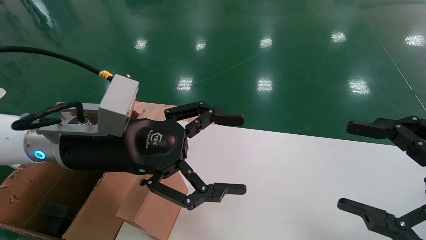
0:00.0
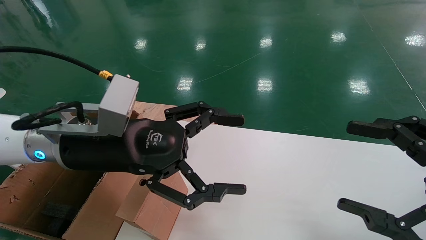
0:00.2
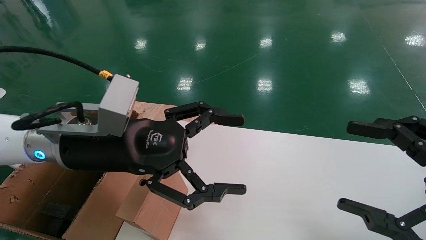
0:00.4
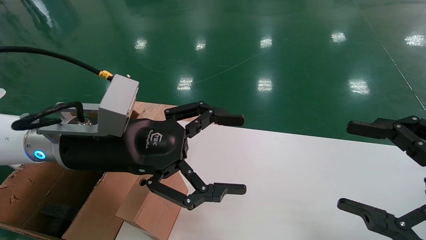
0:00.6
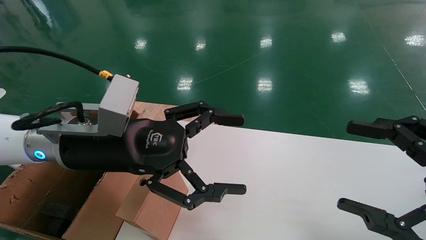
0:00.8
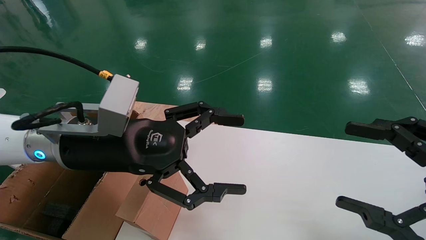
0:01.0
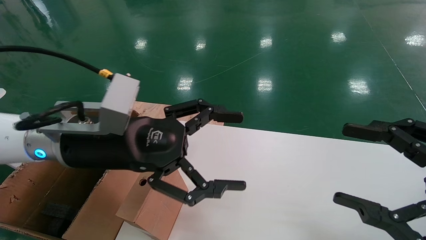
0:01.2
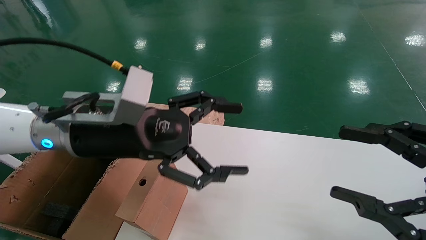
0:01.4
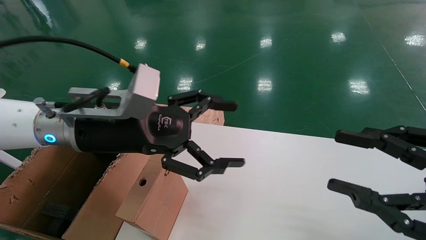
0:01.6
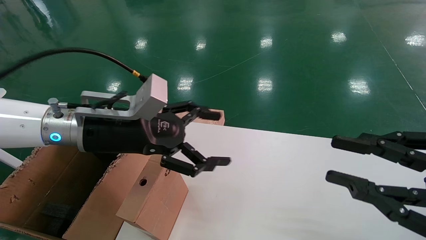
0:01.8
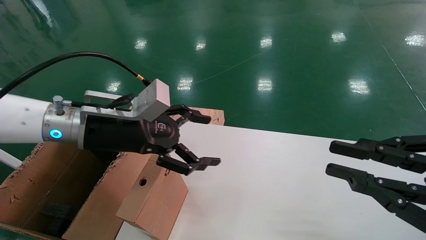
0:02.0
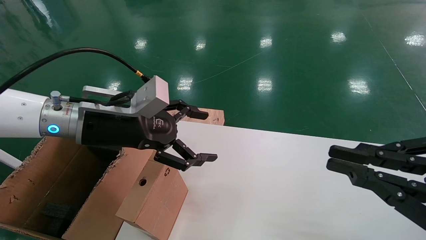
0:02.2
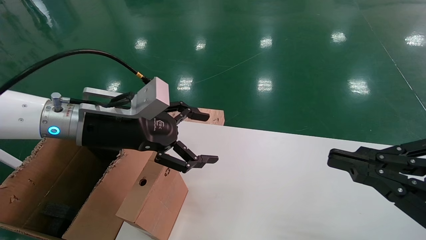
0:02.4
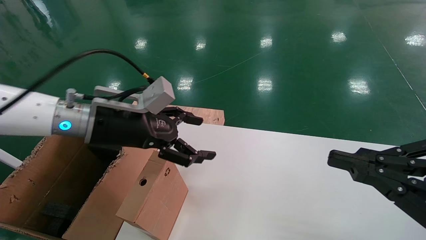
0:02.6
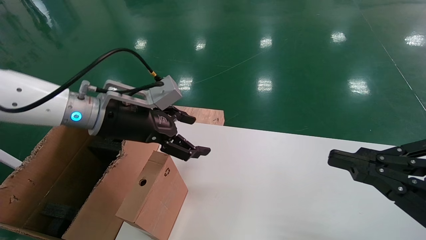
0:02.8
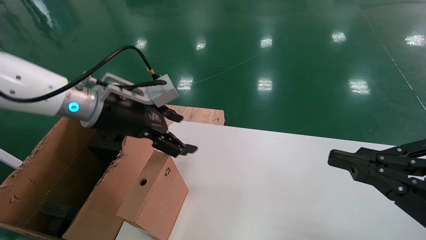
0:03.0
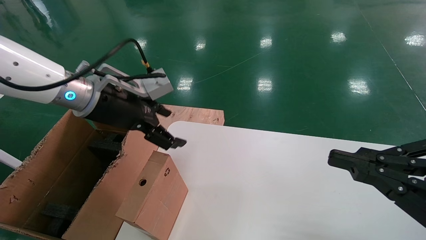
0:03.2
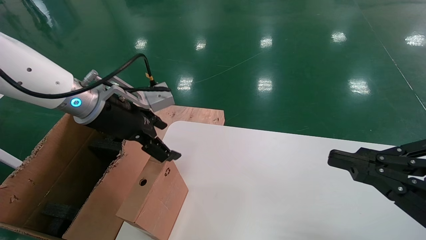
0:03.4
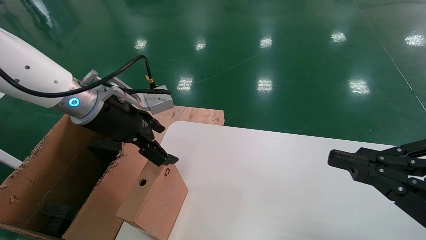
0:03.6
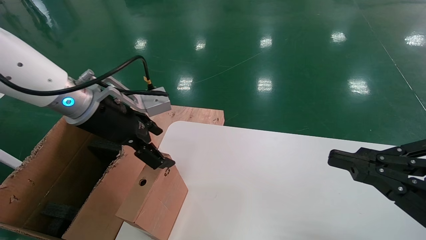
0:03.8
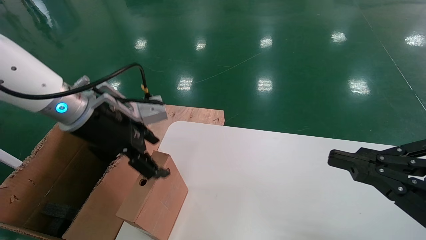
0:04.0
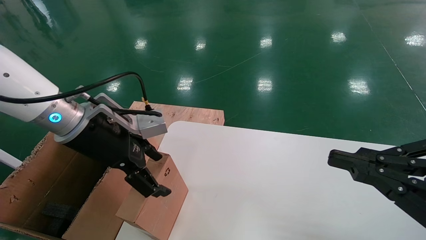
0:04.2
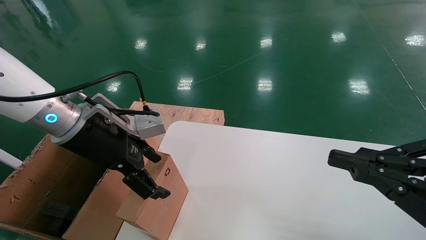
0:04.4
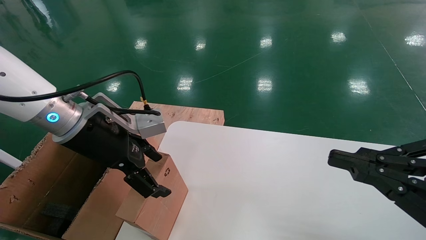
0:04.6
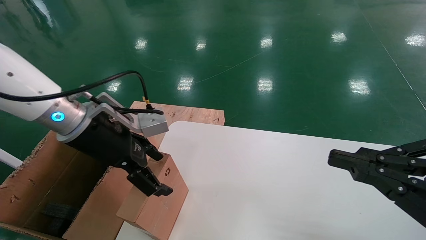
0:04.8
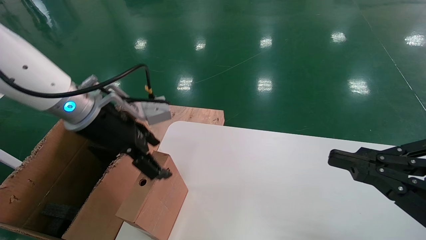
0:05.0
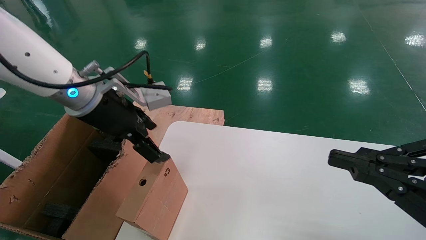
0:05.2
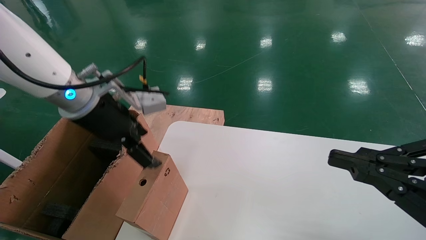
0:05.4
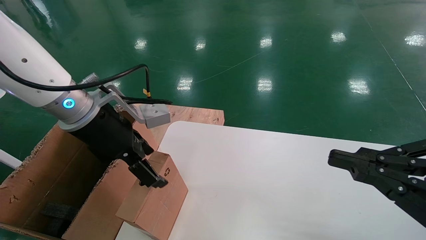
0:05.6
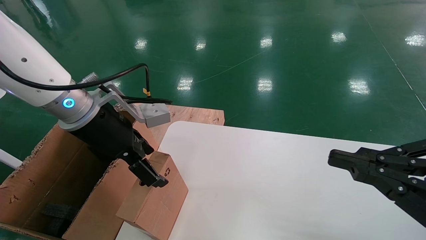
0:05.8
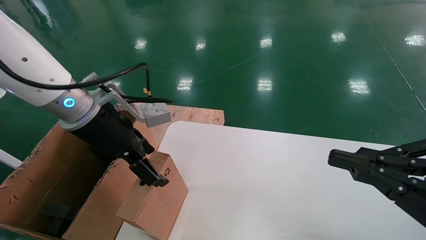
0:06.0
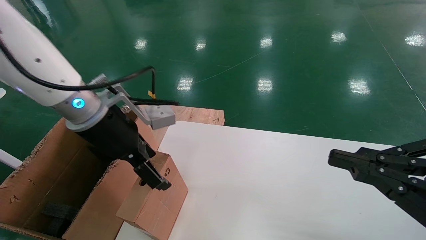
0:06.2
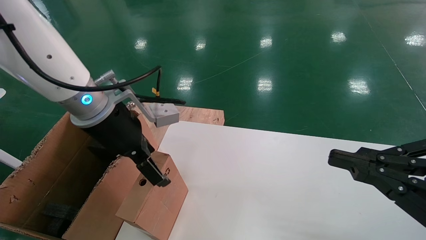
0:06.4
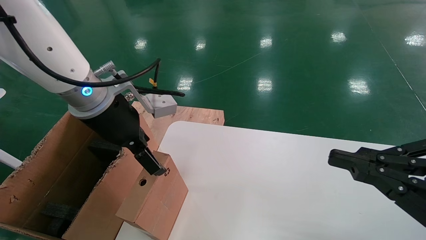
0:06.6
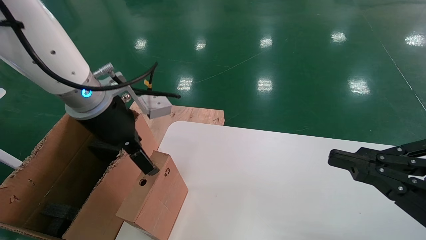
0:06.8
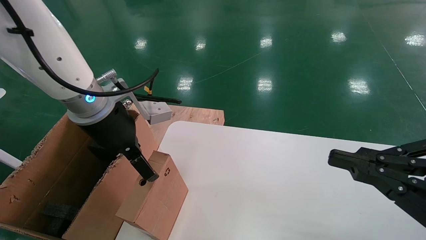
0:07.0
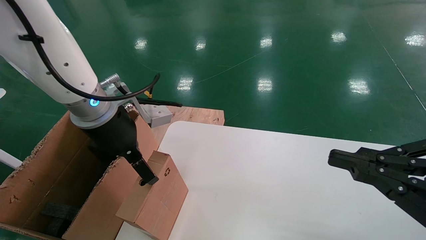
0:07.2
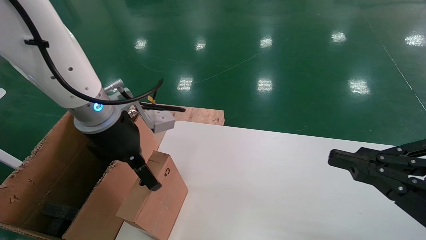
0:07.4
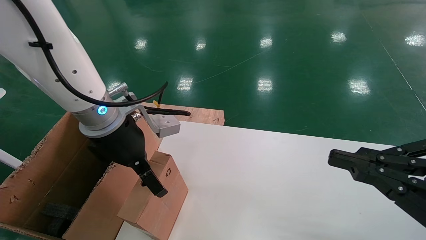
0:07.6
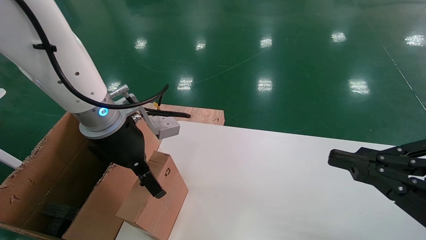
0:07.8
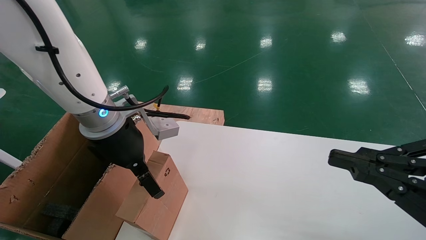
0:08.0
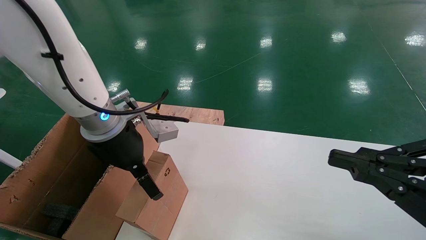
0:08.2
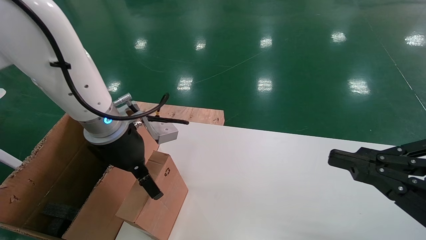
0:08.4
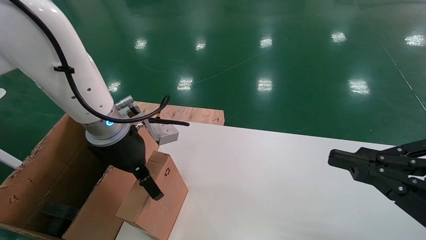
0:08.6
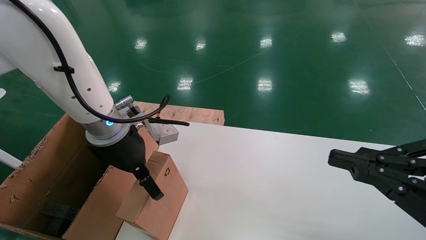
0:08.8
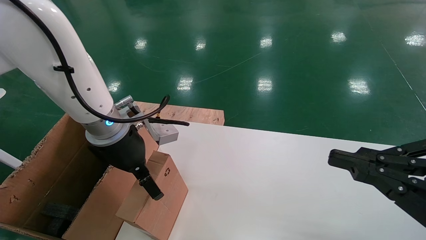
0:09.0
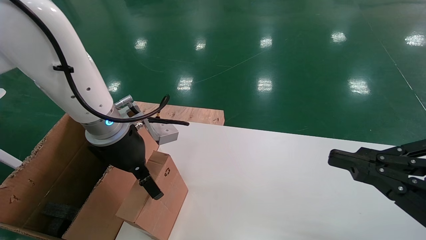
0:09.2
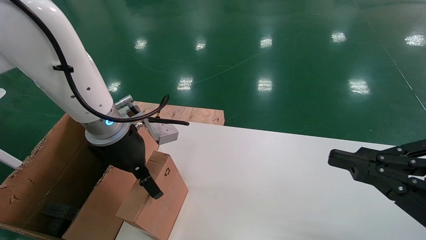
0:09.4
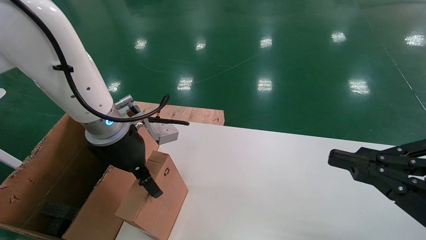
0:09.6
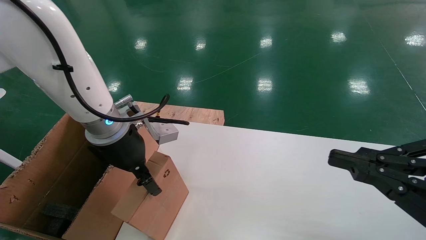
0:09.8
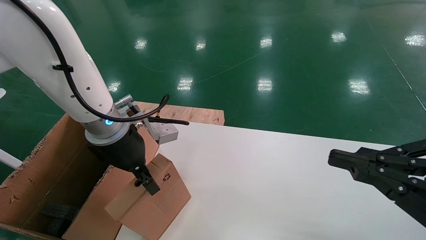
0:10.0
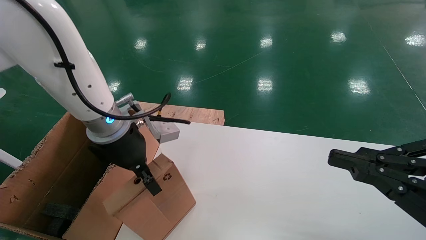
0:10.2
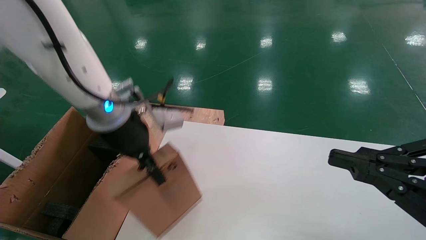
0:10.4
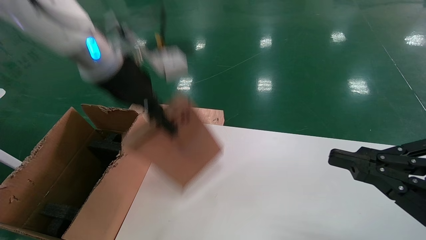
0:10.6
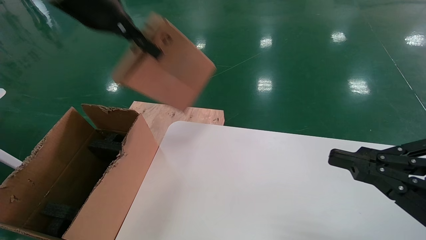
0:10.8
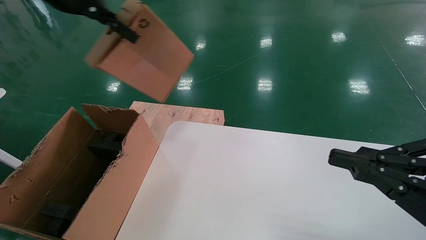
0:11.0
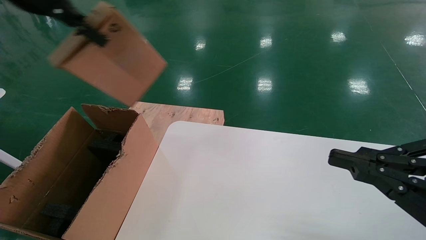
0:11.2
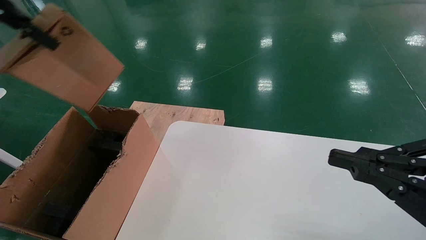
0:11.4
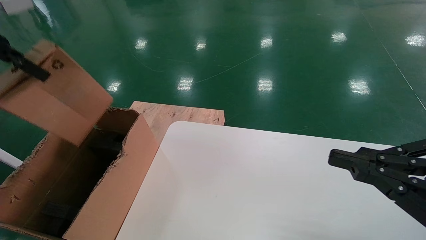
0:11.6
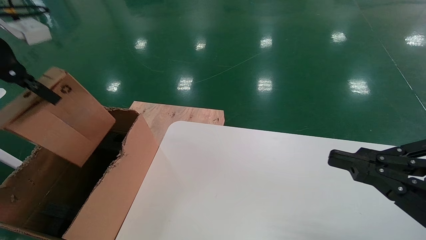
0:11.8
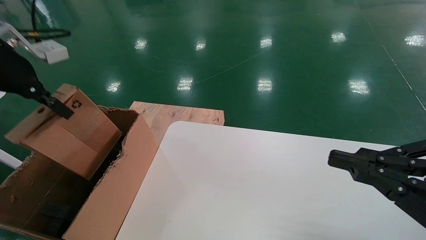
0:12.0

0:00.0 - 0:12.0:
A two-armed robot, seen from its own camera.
Task of the whole recording: place the small box on the table into the large box on the left.
Step, 0:01.6 - 0:10.4: Pick up the mouse and the power cord paper box.
0:01.6 - 0:03.0: The right gripper closes up; the left gripper is displaced forward by about 5 cm.
0:03.0 - 0:04.4: The grippers stay close to where they were, moving slightly.
0:04.4 - 0:06.0: The grippers move only a little.
0:06.0 - 0:09.0: The grippers stay close to where they were, moving slightly.
0:09.0 - 0:10.4: The left gripper shifts roughly 5 cm upward, and closes up.
0:10.4 - 0:12.0: The left gripper goes some 20 cm to the left.

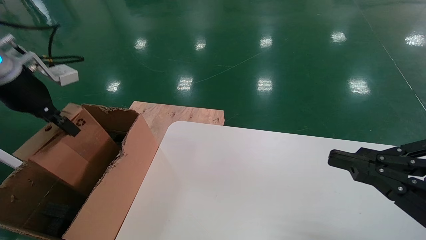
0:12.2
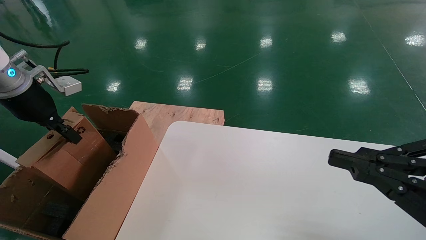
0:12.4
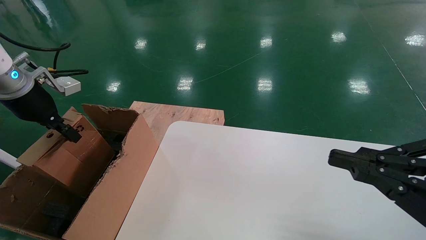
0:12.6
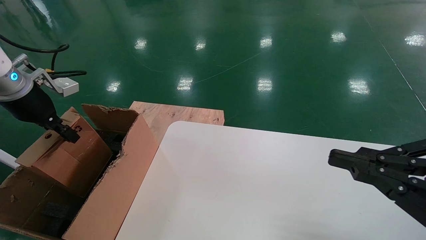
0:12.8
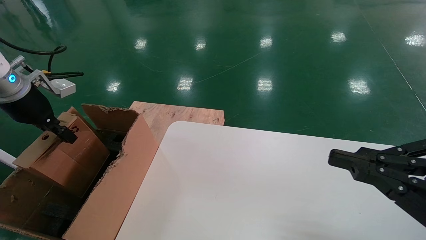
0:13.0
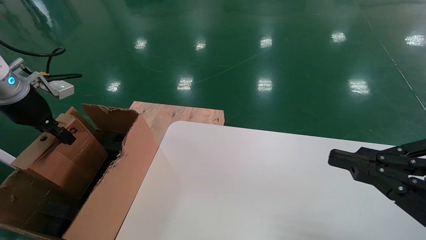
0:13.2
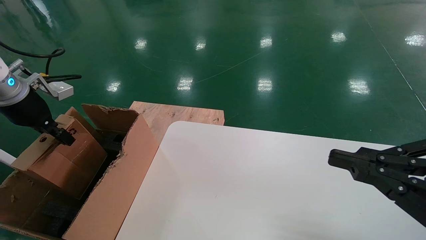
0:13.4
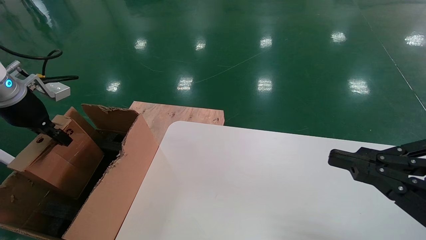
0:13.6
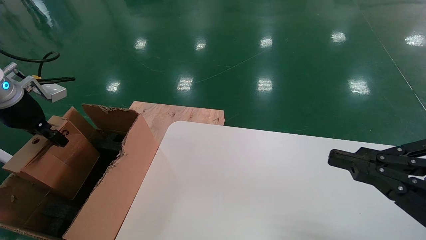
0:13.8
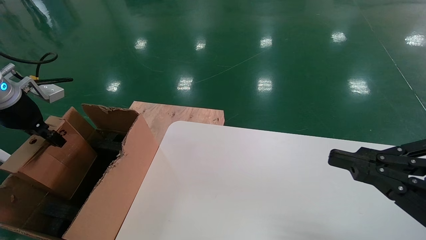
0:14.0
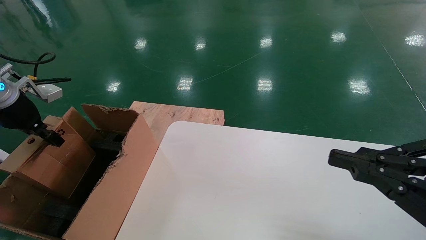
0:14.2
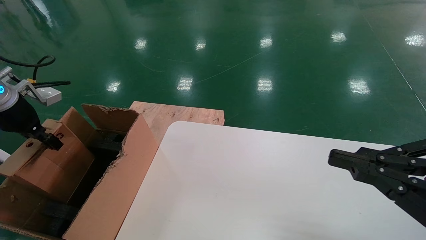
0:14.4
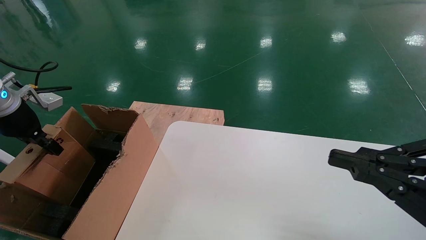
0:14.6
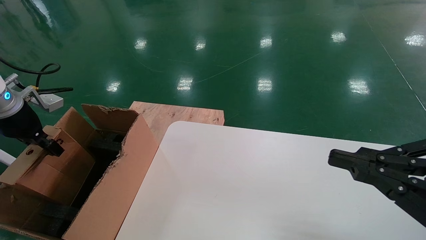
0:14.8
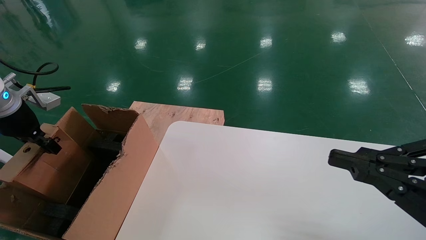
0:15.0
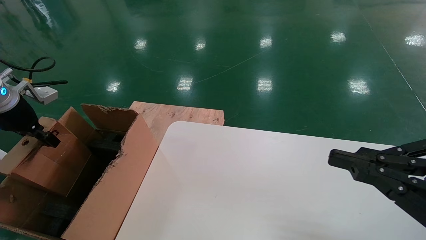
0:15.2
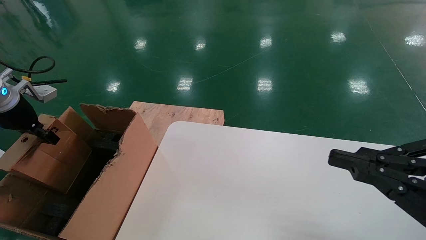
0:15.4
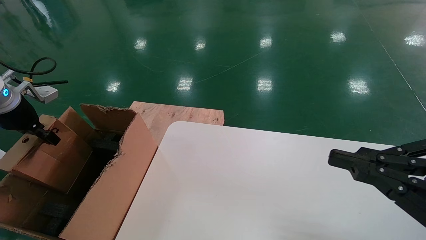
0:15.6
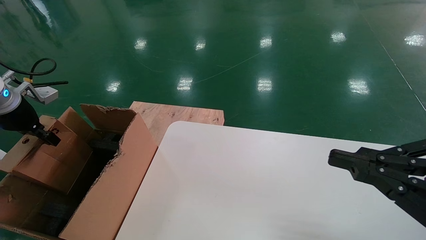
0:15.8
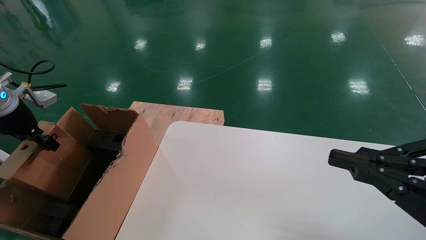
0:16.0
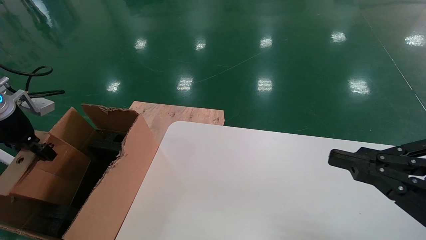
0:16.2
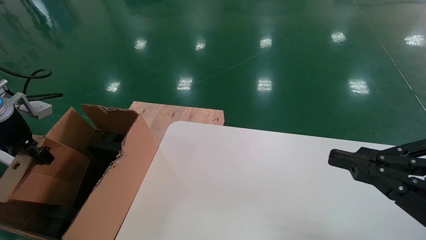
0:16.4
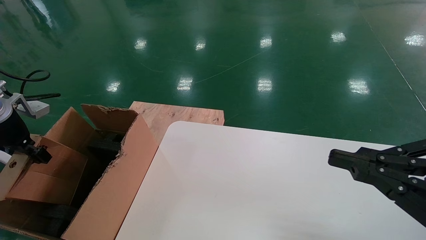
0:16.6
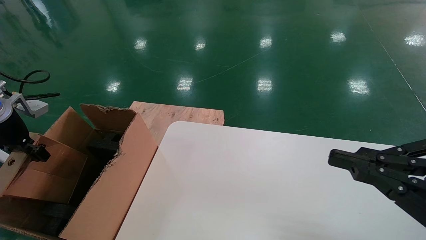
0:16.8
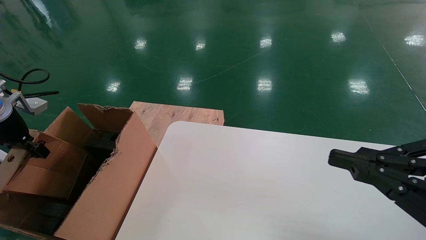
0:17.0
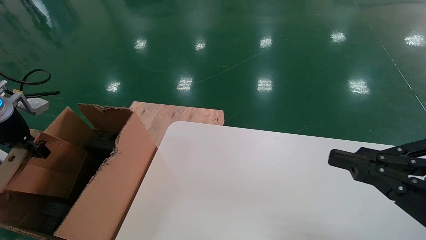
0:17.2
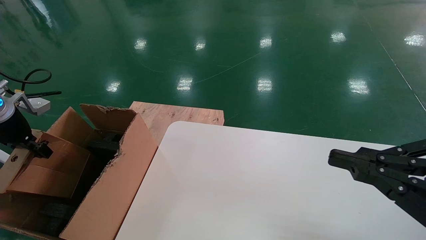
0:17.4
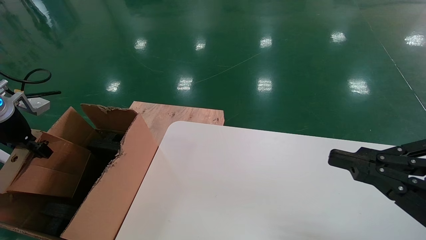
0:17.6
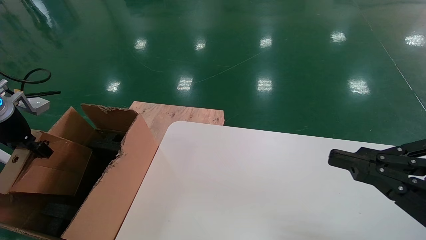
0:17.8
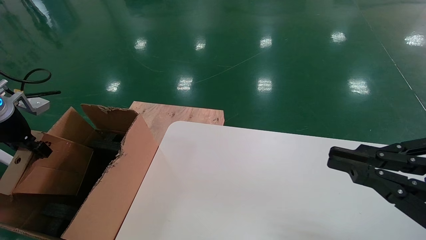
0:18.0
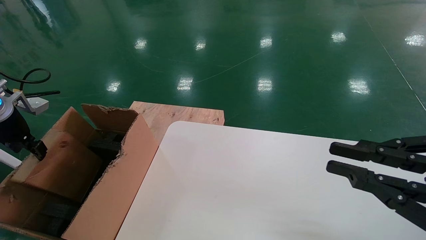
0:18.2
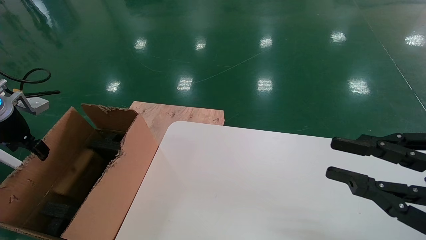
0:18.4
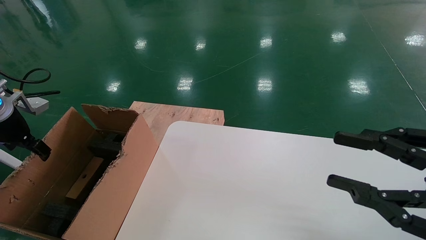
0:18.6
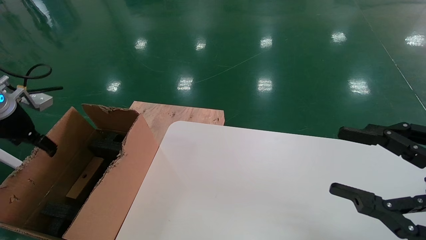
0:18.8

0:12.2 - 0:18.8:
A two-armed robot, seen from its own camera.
Task of the whole recording: place the small box on the table into the large box on the left.
Step, 0:12.2 - 0:18.6: Place the mouse and the power cord paper box into the container.
0:12.2 - 0:13.8: The left gripper goes approximately 5 cm downward.
0:13.8 - 0:17.2: There are only small adjustments of the grippers.
0:17.2 - 0:18.8: The right gripper opens its fingers, while the left gripper opens its fingers.
